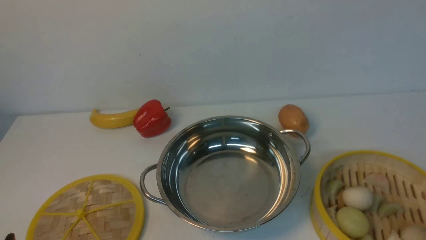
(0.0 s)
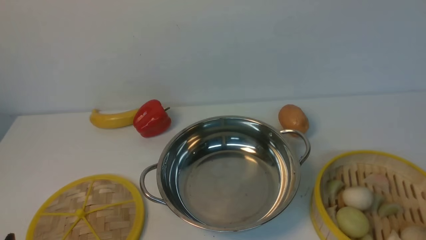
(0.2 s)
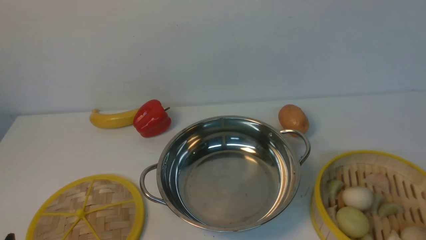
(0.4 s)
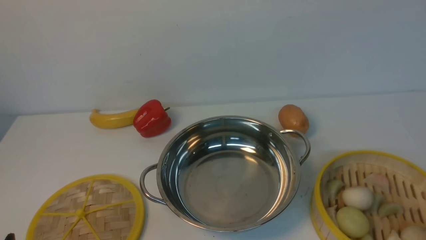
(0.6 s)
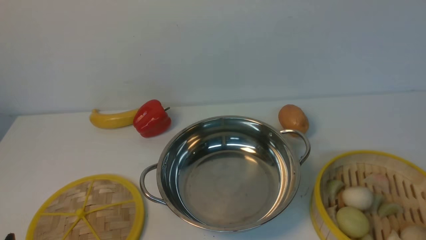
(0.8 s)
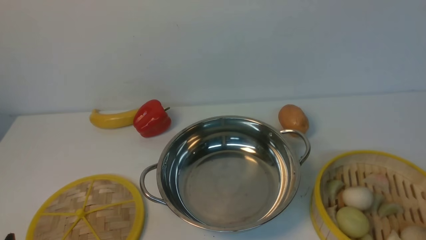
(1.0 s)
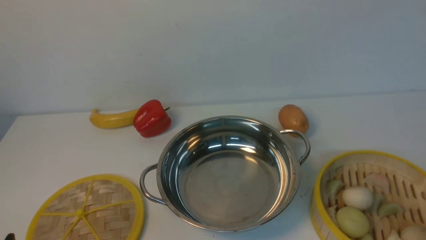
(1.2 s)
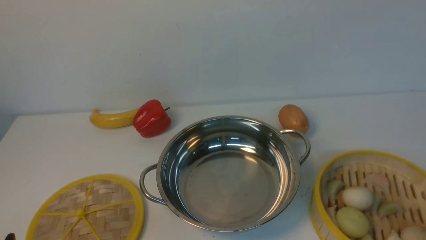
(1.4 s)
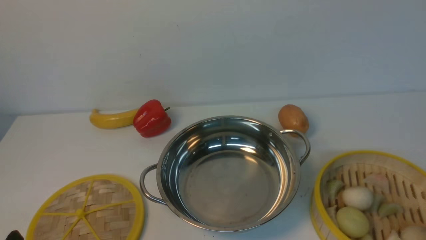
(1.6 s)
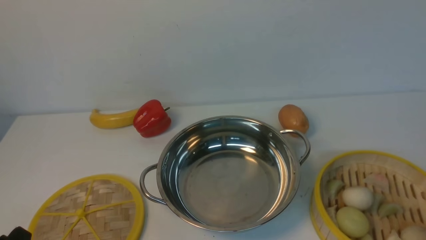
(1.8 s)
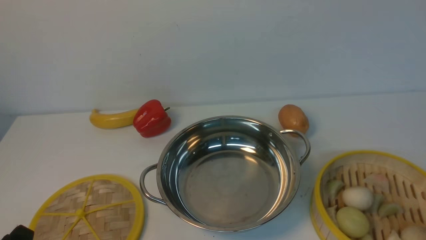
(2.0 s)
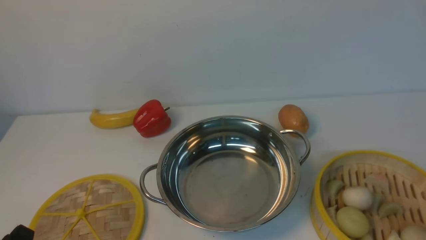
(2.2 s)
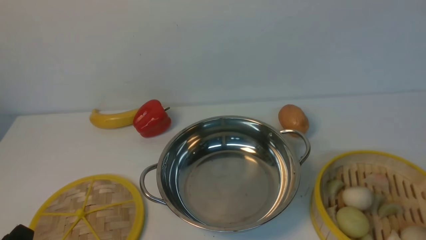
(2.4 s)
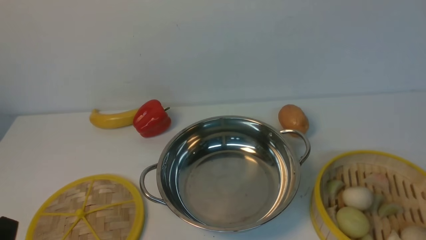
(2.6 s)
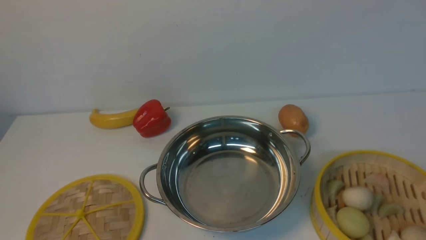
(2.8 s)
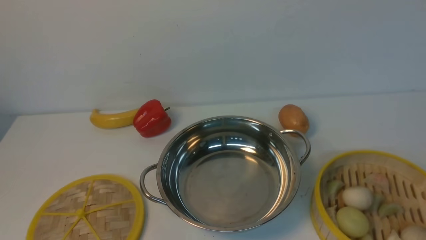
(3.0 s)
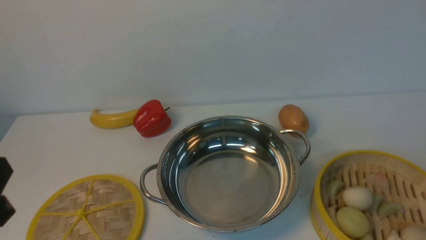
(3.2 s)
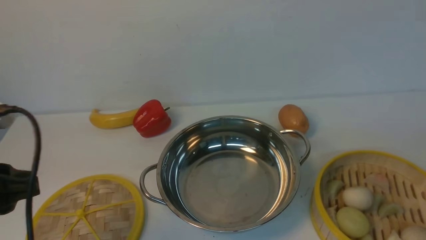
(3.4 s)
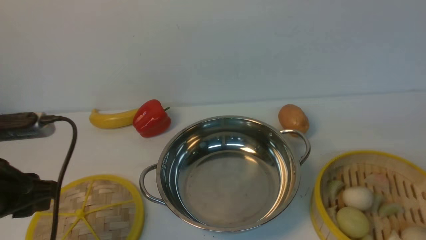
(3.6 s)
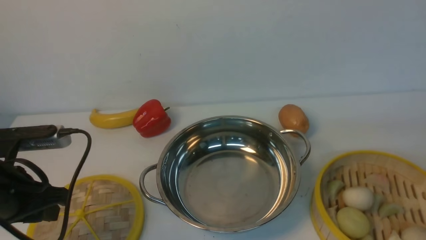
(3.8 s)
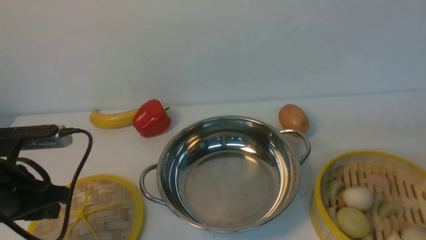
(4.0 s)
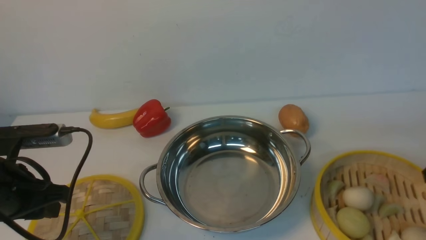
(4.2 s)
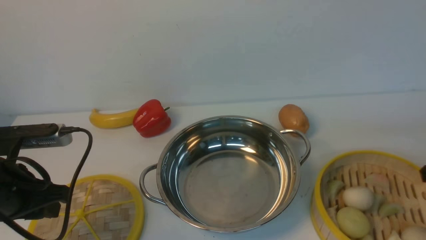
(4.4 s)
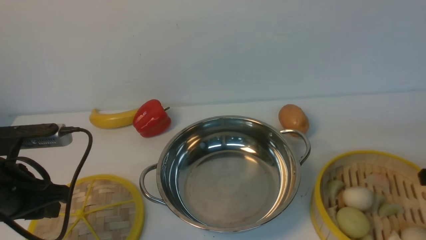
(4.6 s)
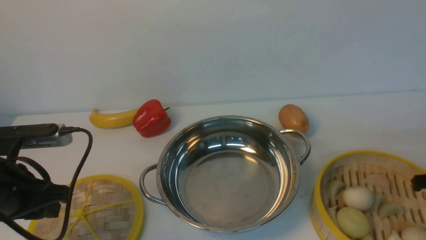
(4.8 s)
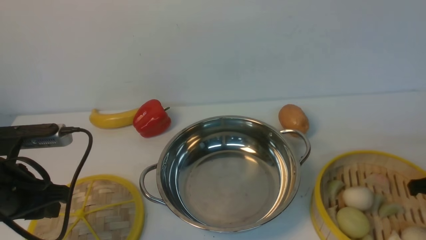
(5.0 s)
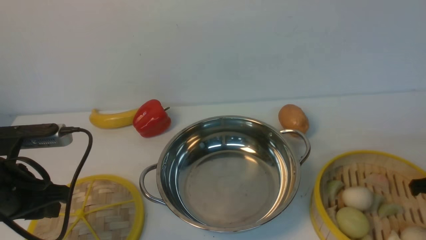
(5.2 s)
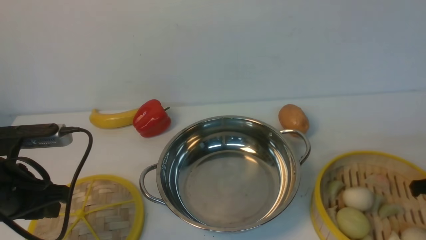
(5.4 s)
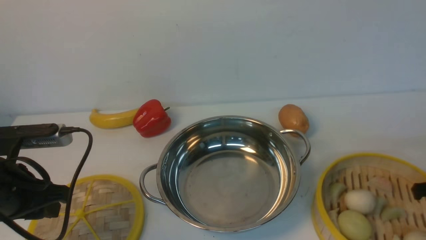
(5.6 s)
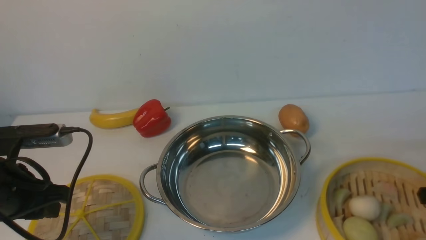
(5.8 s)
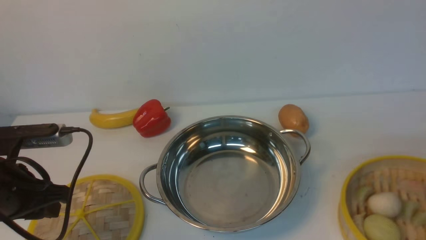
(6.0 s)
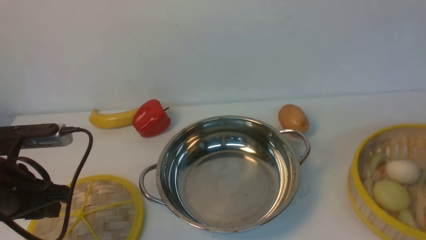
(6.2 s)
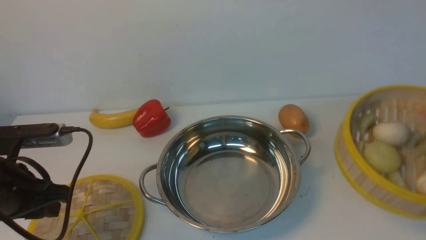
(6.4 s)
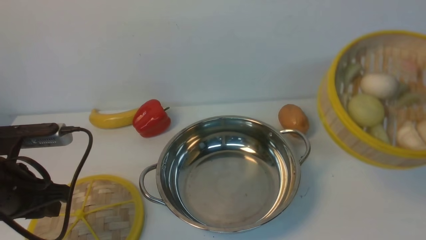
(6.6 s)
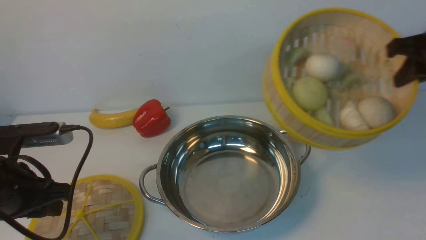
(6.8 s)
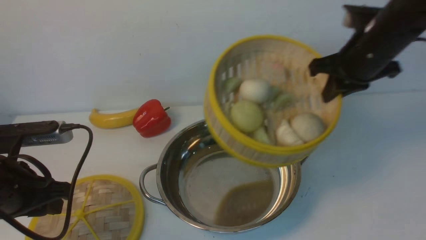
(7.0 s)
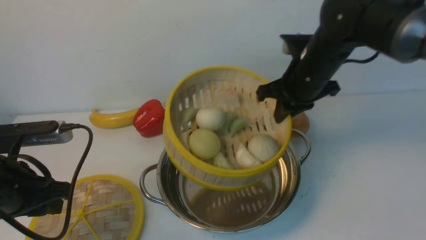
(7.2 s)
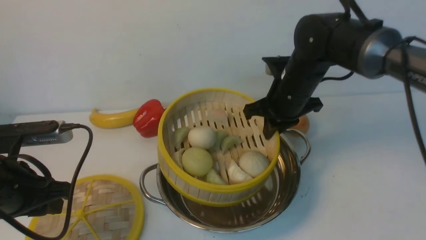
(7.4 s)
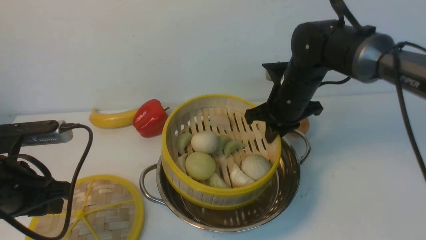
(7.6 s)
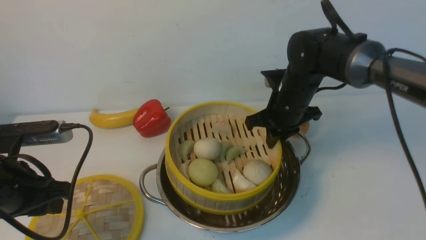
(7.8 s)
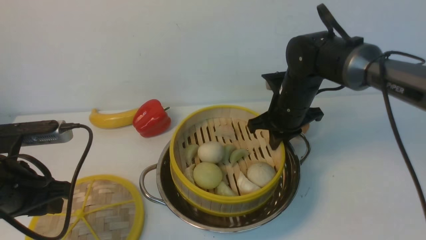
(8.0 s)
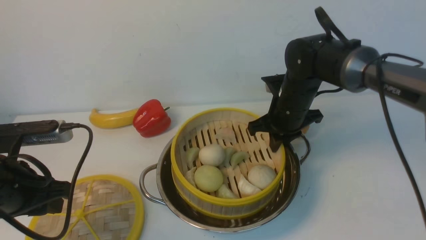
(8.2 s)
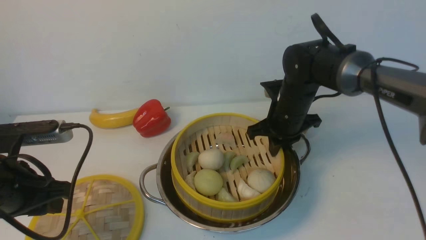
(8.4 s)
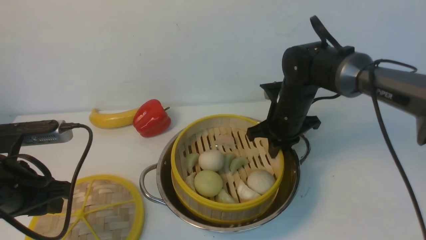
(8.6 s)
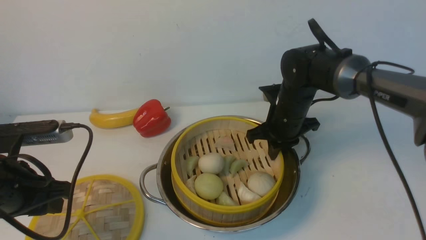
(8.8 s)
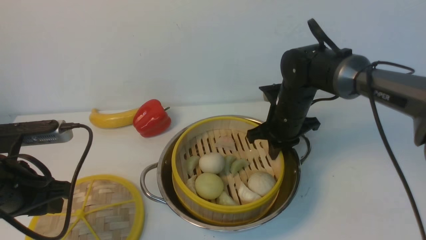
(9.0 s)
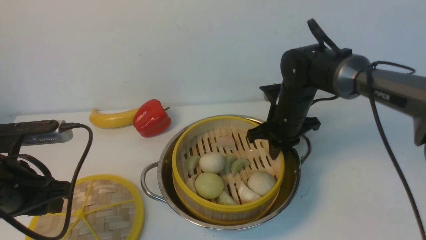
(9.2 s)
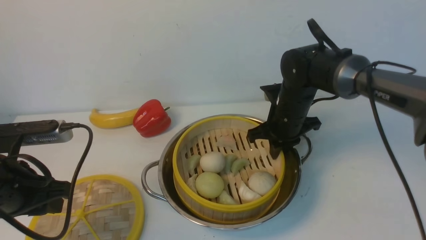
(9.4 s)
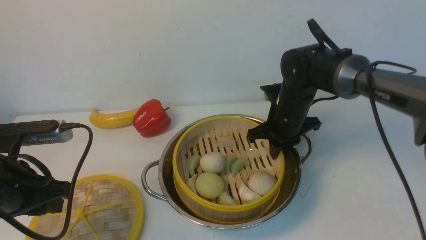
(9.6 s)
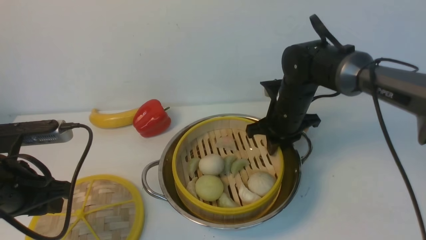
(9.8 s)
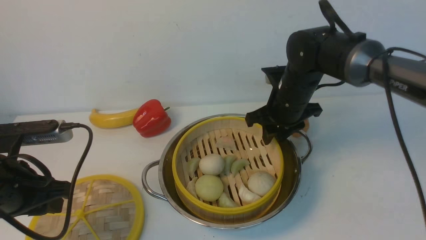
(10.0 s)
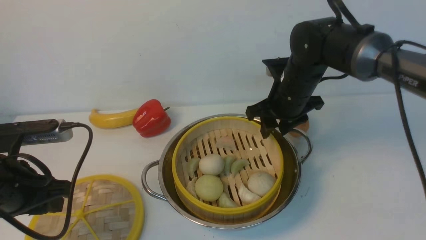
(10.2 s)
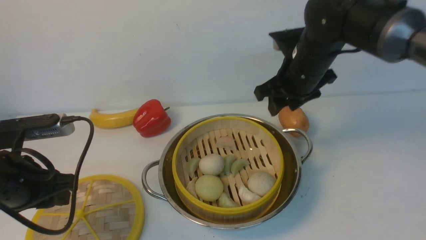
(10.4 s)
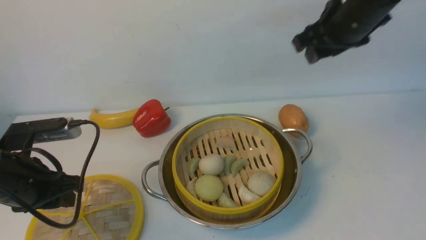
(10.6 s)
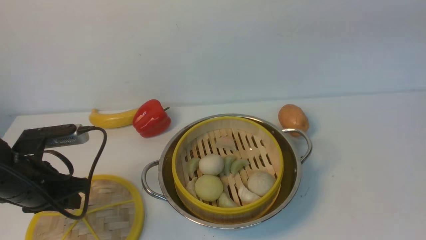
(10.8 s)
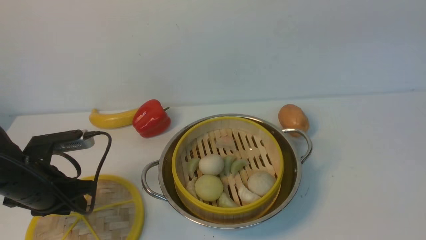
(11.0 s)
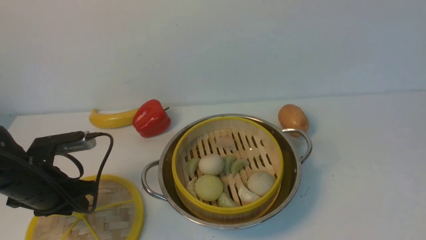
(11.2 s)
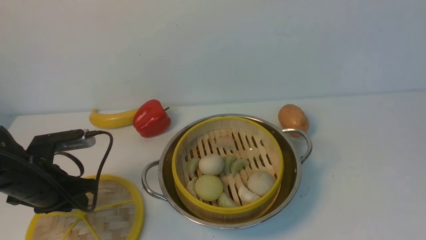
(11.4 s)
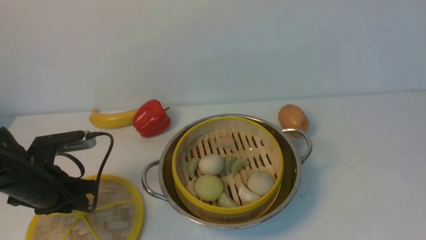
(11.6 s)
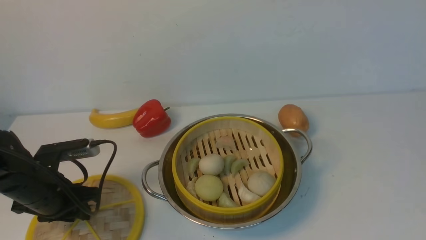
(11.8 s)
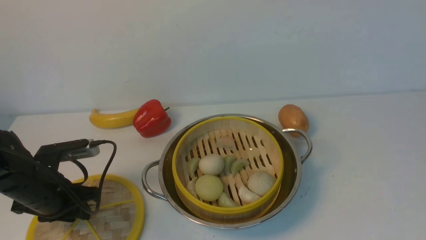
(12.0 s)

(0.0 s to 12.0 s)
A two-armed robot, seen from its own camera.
Task of the whole recording: place the steamer in the pot on the white table, and put the lid on the steamer.
Step, 0.0 s - 6.4 s: use the right arm to lift the steamer closest to it.
Step, 6.6 s - 10.4 s: use the right arm to put the steamer into the iron steamer pot in the middle.
3.0 s - 4.4 s: The left gripper travels forward by about 15 cm.
4.4 s - 6.0 s: The right gripper closes its fingers.
6.0 s - 7.6 s: The right gripper is displaced to the left and forward by about 30 cm.
7.6 s - 9.0 s: The grippers move only a little.
9.0 s - 10.4 s: The right gripper shifts roughly 15 cm upward, and opens.
10.4 s - 12.0 s: The left gripper shifts approximately 10 cm downward, while the right gripper travels backward, upward and to the right by some 40 cm, and closes up.

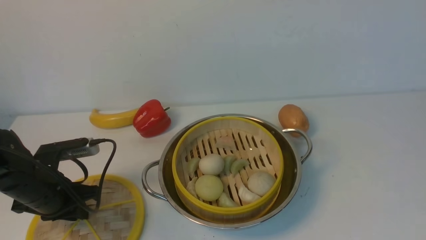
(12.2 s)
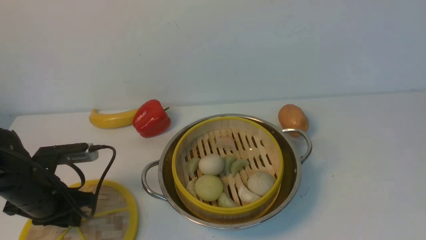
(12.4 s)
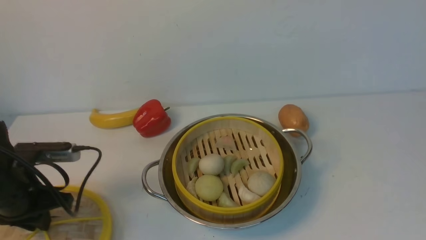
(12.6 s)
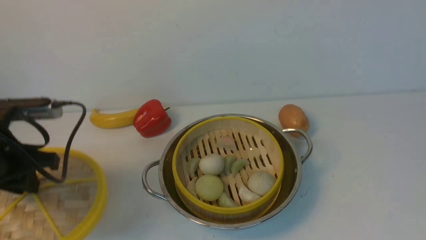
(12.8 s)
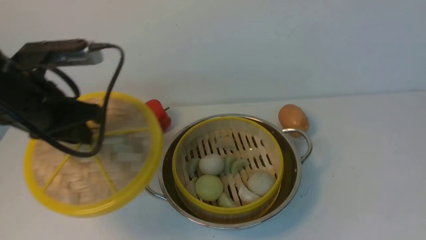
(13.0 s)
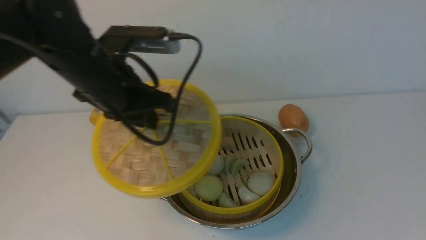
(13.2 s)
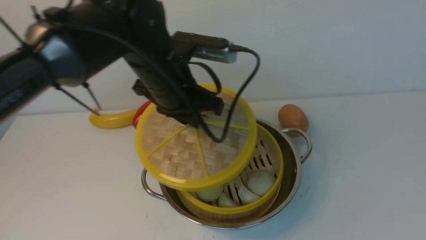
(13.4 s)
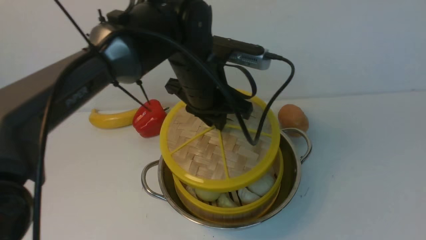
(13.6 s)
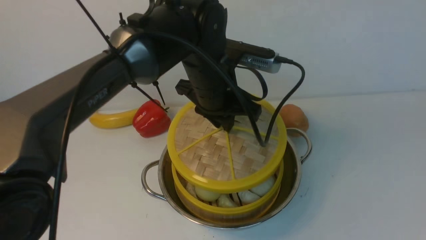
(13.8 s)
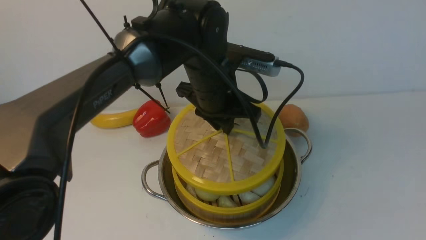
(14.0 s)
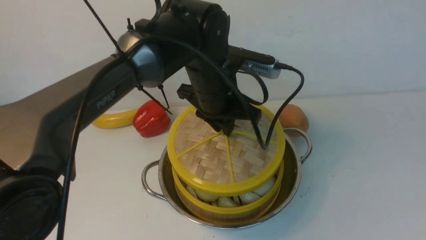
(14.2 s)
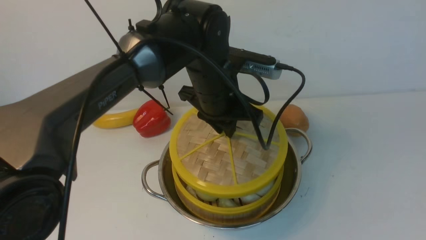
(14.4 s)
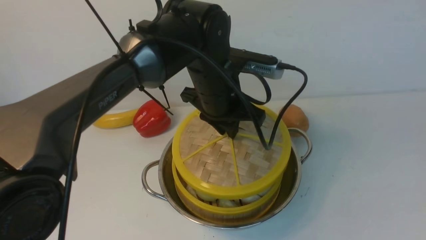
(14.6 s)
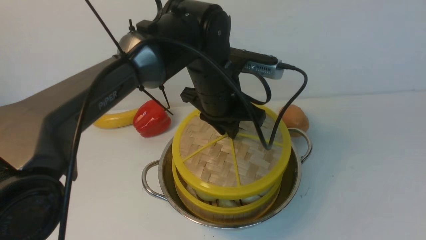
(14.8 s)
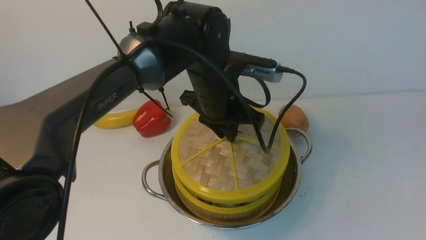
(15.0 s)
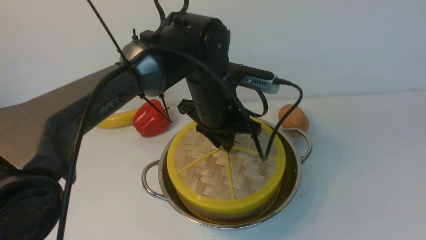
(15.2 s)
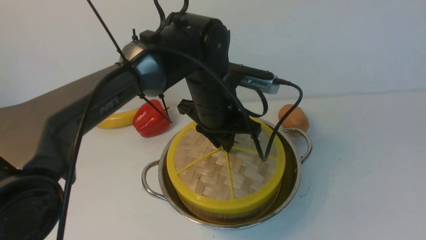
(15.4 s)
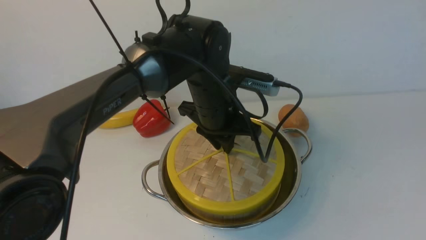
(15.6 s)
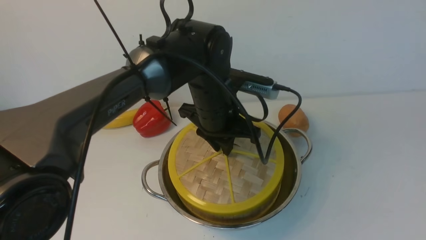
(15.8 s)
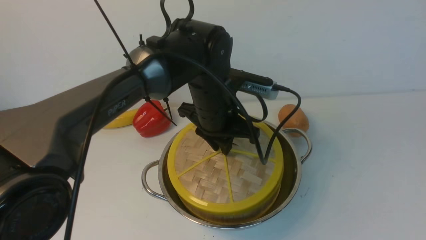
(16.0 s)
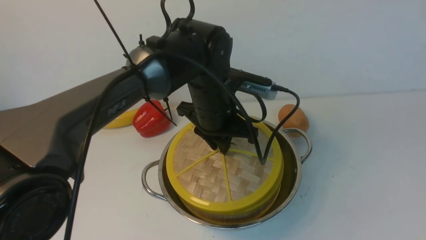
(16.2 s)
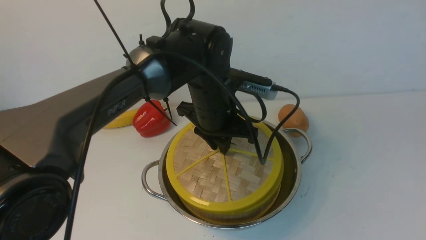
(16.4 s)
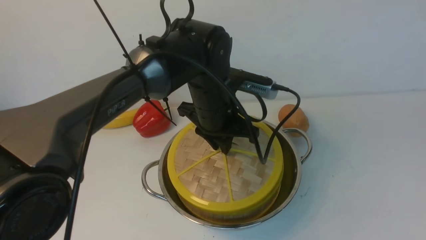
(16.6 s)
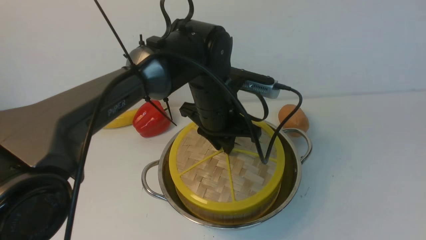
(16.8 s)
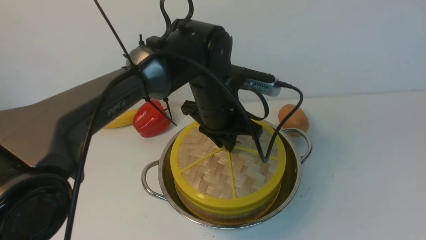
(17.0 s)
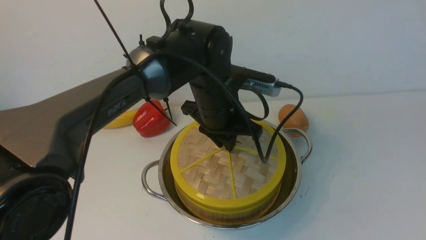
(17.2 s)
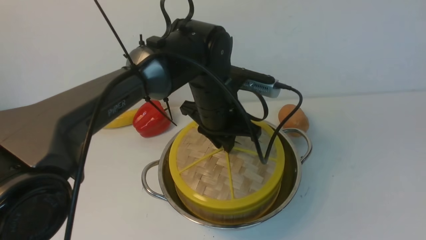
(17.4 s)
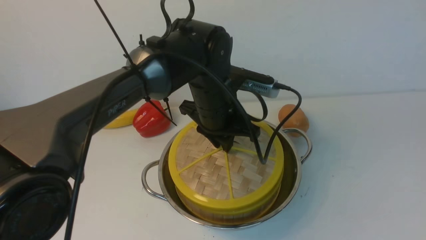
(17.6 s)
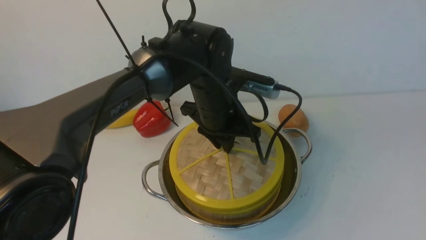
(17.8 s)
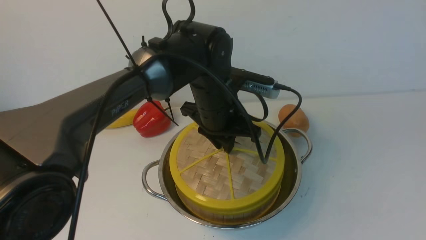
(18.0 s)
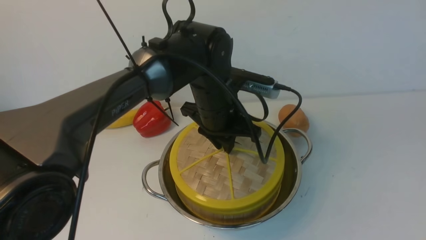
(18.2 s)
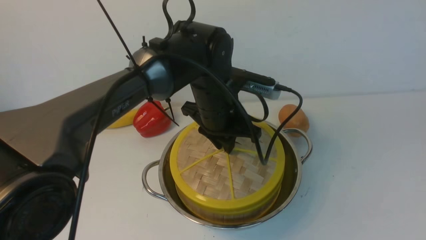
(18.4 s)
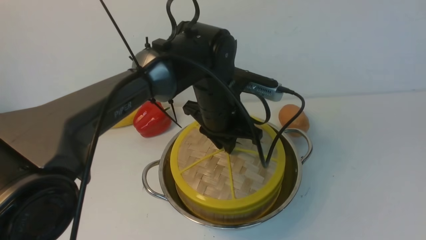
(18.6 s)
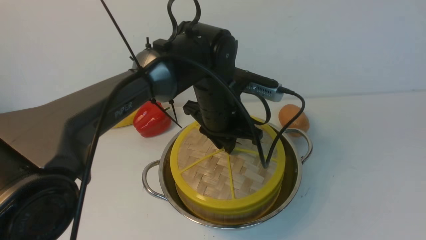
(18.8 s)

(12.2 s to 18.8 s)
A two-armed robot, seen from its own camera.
Task of the whole recording: place the steamer in the pot on the white table, and put the lid on the steamer.
12.2 s - 13.8 s: The left gripper goes some 30 cm to the right and upward.
15.4 s - 17.2 s: Both grippers stay put.
17.2 s - 18.8 s: Neither gripper changes place.
